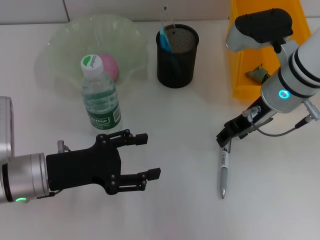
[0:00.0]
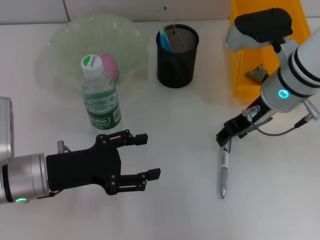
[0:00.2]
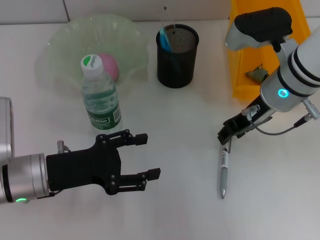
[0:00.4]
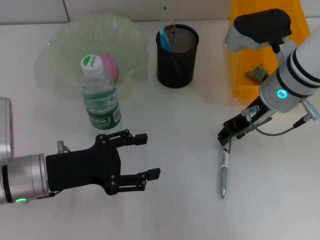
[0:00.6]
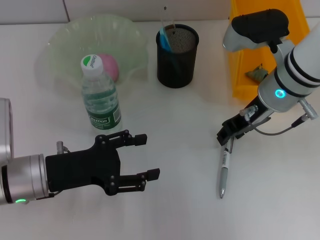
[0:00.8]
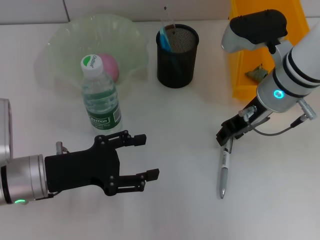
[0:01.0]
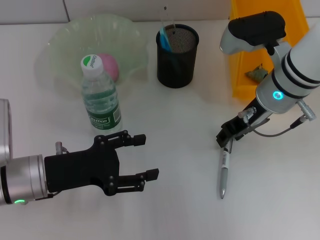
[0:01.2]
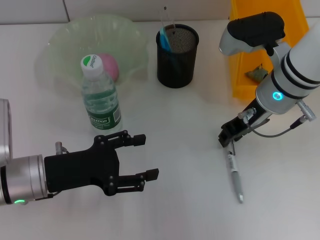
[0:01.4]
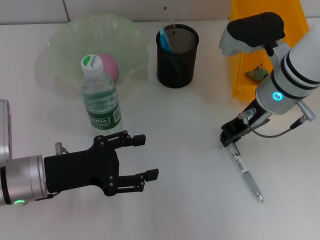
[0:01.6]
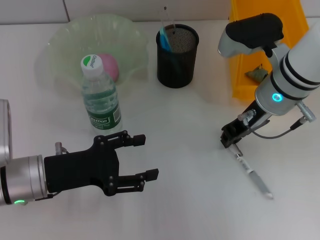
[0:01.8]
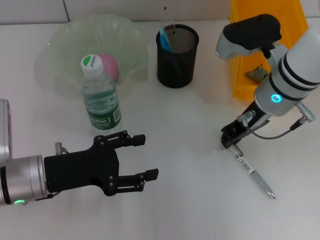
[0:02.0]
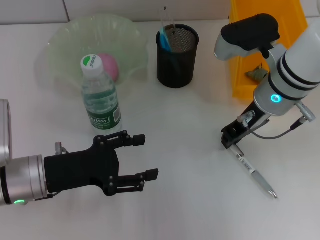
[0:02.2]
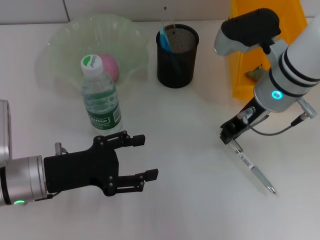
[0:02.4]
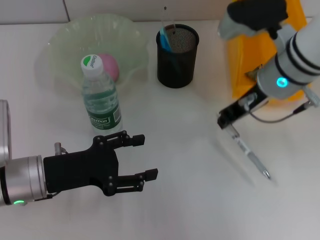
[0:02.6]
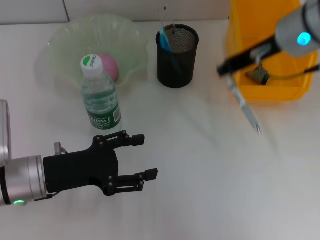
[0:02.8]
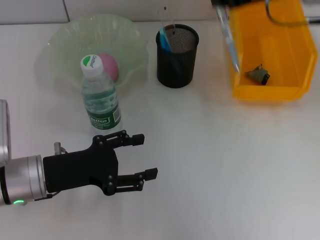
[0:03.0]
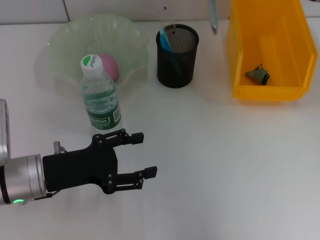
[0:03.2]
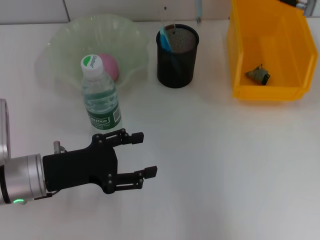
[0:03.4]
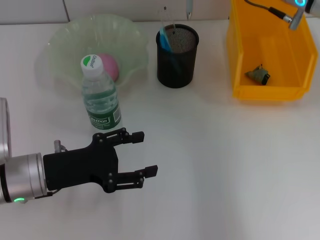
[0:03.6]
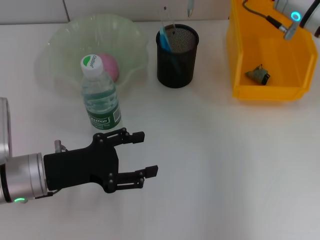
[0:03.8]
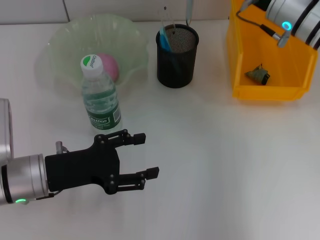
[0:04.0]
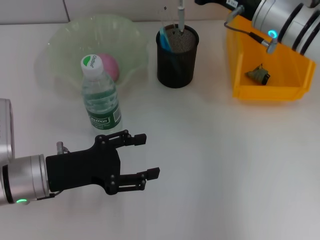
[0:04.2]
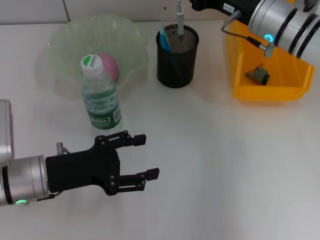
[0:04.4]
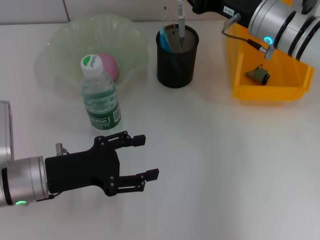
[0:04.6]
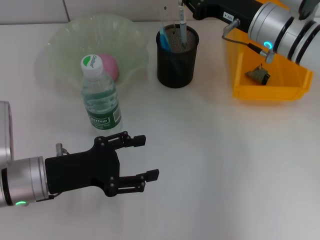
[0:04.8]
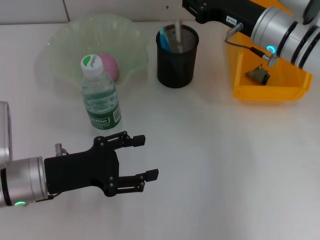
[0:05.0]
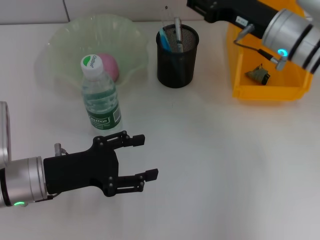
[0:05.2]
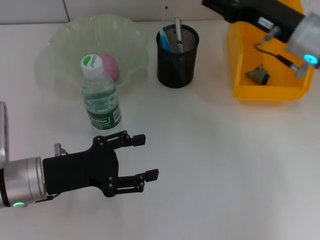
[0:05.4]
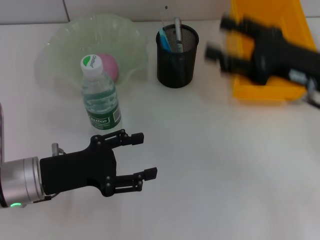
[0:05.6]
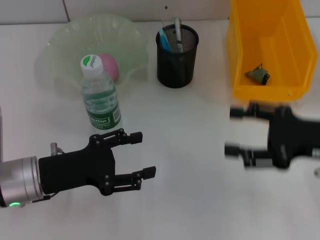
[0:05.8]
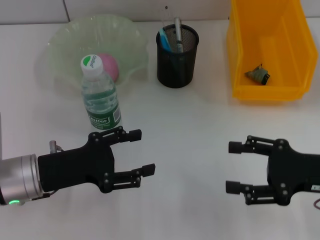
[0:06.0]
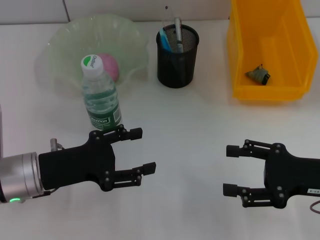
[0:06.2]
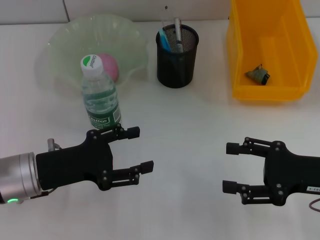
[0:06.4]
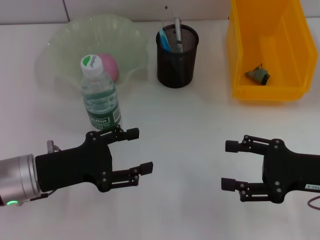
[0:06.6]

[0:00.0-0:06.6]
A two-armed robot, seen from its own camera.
Step, 2.0 to 5.4 s: Place the gray spring-action pen into the pen holder with the right hand.
0.0 to 1.6 s: The right gripper closes its fingers.
1.6 to 3.2 s: The right gripper goes approximately 15 cm upward.
3.2 to 5.0 s: The right gripper moves downward, about 15 cm.
5.0 to 6.6 s: The right gripper is displaced backward and to the right by roughly 20 cm, and opens.

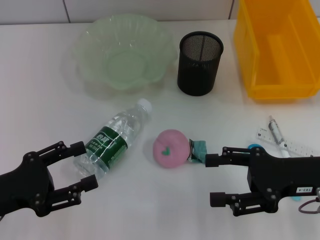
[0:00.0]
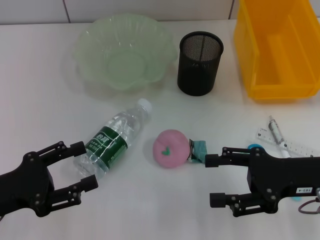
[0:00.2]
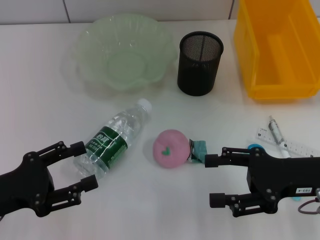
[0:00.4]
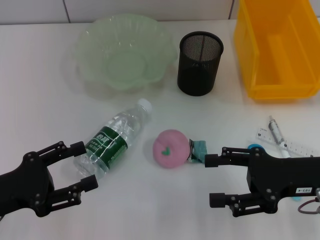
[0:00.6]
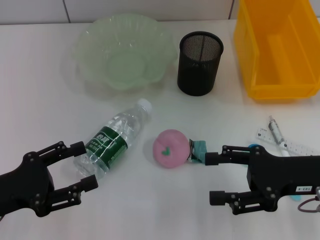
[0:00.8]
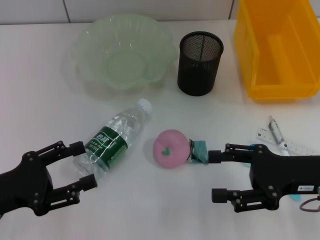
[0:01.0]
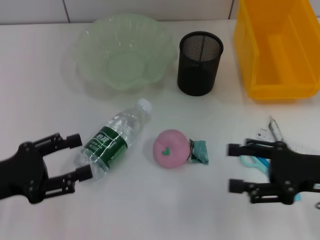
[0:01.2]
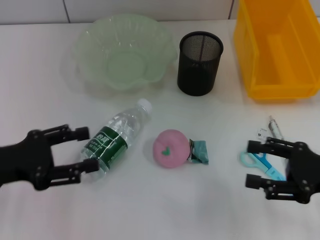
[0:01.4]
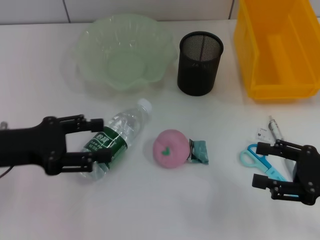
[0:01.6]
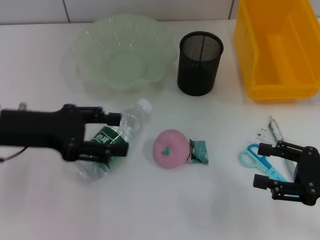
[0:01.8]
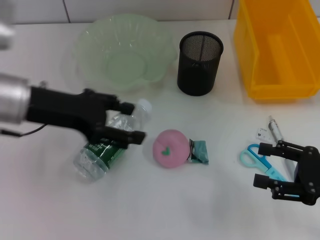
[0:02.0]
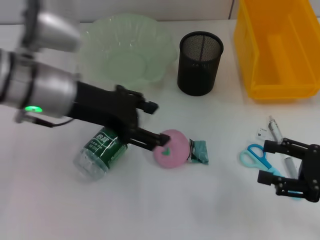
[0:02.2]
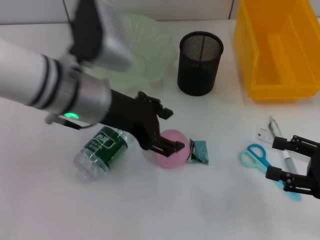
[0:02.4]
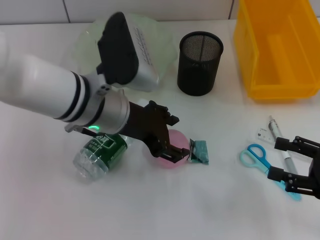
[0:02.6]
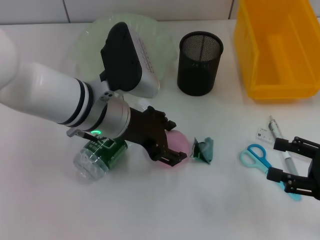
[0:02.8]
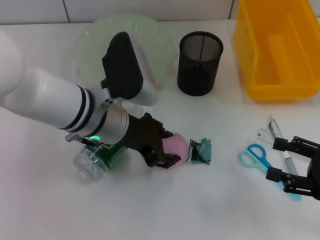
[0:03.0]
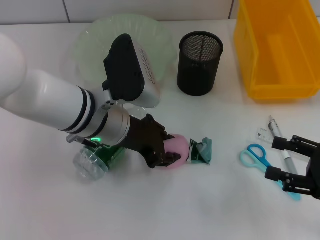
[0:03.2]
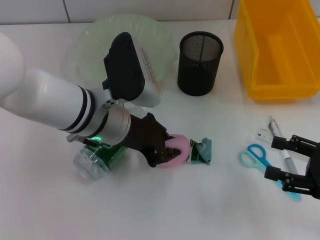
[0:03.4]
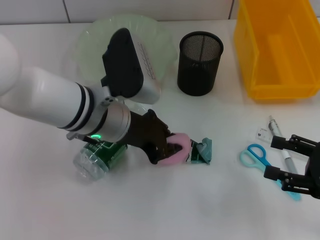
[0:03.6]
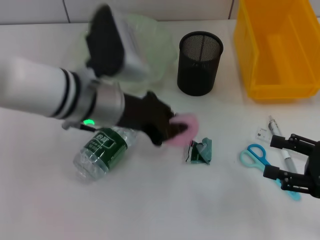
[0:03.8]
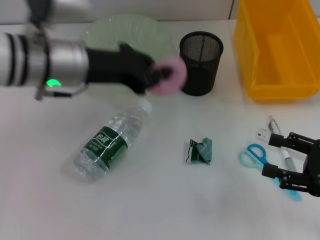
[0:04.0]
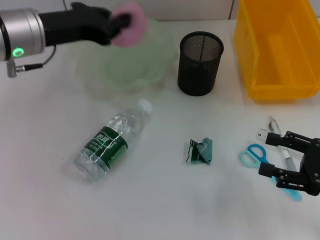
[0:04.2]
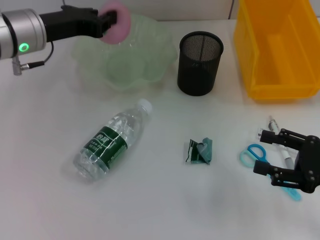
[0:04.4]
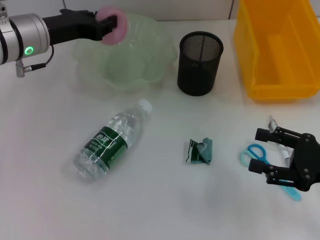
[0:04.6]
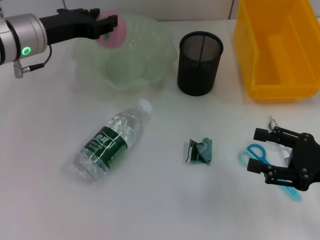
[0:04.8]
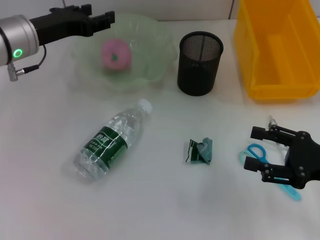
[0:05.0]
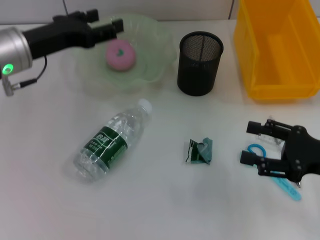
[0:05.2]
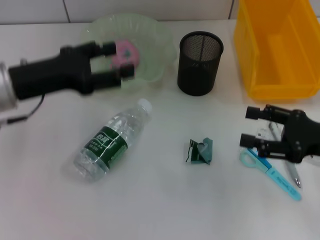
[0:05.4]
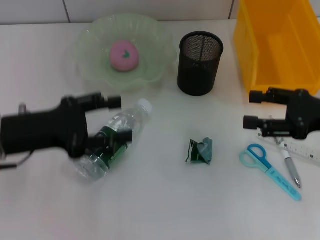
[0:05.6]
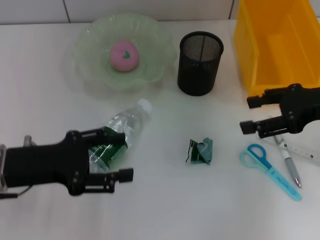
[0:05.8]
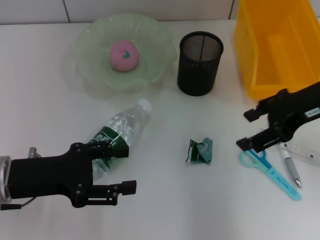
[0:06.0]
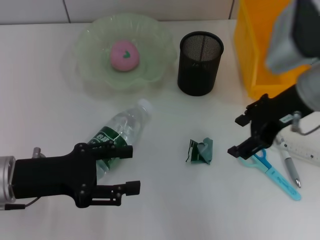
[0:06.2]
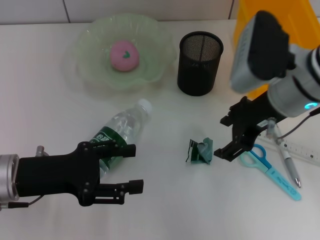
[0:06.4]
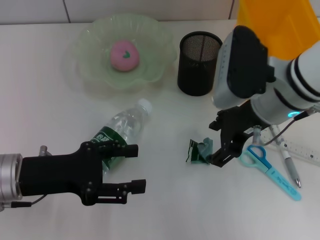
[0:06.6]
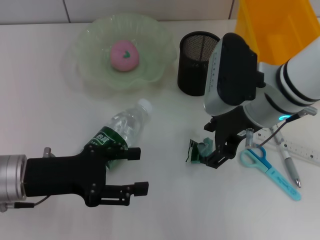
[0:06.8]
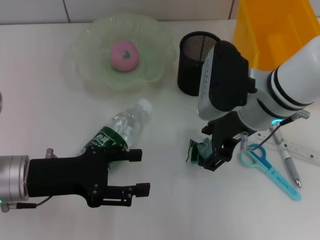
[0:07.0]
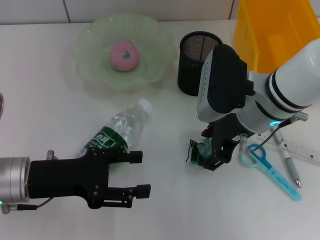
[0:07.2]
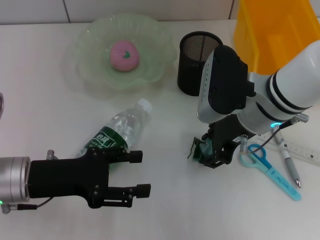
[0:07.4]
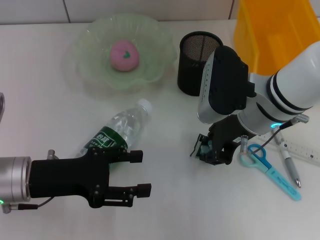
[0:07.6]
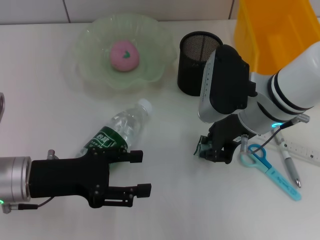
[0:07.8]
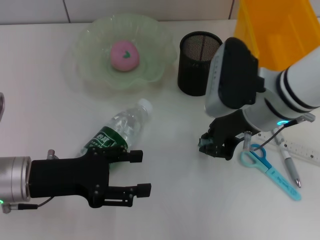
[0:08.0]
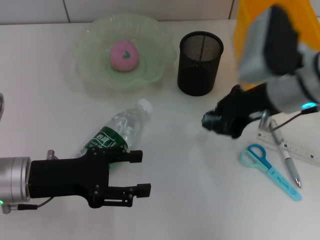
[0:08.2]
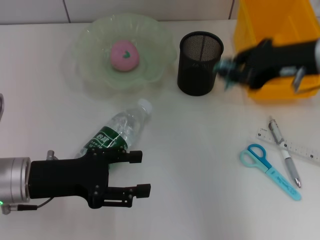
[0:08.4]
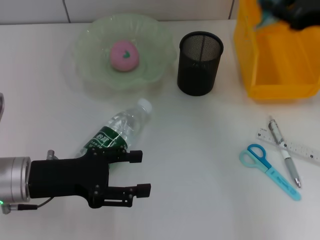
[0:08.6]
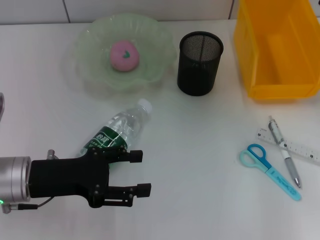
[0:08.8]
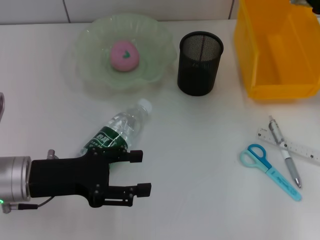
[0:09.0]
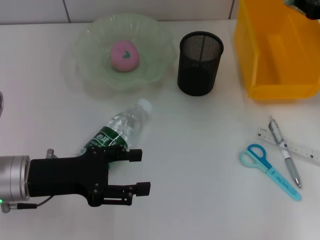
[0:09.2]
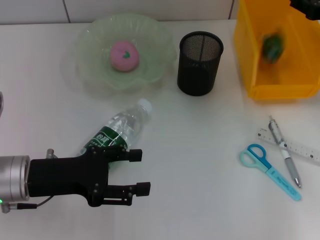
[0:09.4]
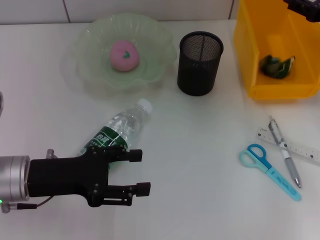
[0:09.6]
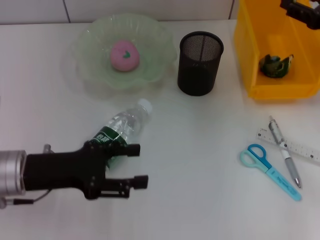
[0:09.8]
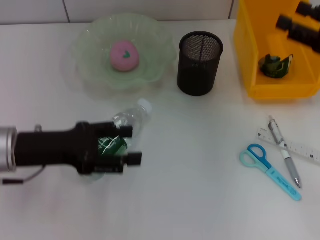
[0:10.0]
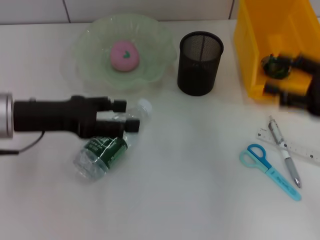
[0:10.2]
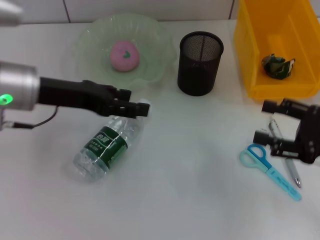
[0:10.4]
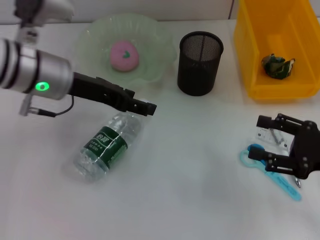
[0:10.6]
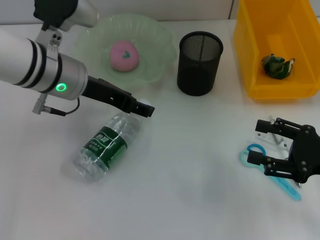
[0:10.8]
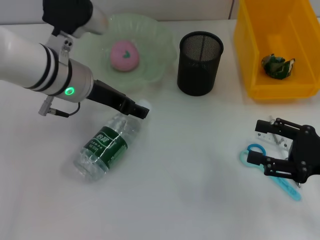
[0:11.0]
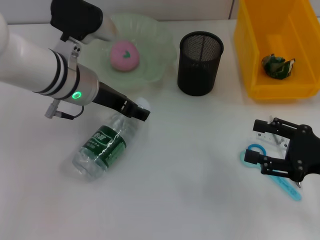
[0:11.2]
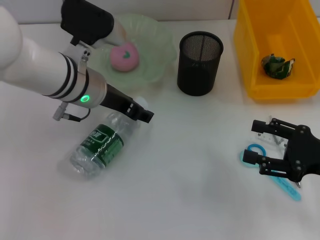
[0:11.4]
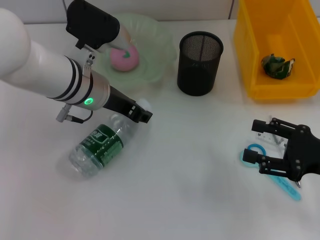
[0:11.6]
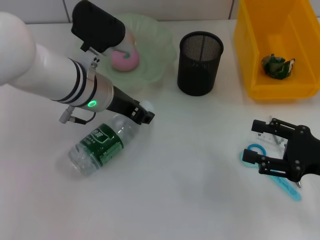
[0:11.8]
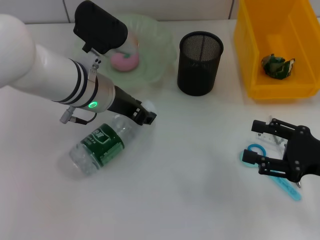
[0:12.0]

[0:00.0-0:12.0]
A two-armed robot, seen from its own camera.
Step, 0.0 to 3.4 s: Grab the peach with the left hand.
Step, 3.6 to 5.0 s: Place the peach into the fruit bowl with the left hand.
Step, 5.2 to 7.6 s: Grab the plastic with the right hand.
Step, 7.8 to 9.8 s: Place the plastic into the trash can with the right hand.
Step, 10.0 to 11.8 s: Grab the water bottle with the left hand.
0.0 to 1.6 s: The left gripper heads forward and upward, covering approximately 10 cm; the right gripper is displaced to the right by about 5 cm.
1.6 to 3.0 s: The left gripper heads to the right, covering roughly 20 cm.
3.0 to 4.4 s: The left gripper goes about 15 cm to the left and forward, and closes its fingers.
4.4 to 6.0 s: The right gripper heads upward, forward and to the left, covering about 20 cm. The left gripper moves backward and downward, roughly 20 cm, and opens up.
6.0 to 7.6 s: The right gripper travels to the left and downward by approximately 10 cm, and closes up.
7.6 to 9.0 s: The right gripper goes about 20 cm to the right.
9.0 to 10.4 s: The left gripper heads upward and forward, covering about 10 cm. The right gripper travels backward and downward by some 15 cm, and opens.
10.4 to 12.0 s: The left gripper heads to the right, covering roughly 10 cm, and closes.

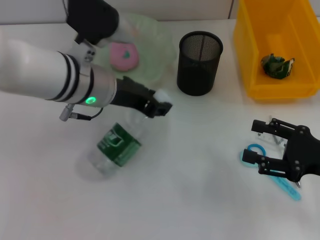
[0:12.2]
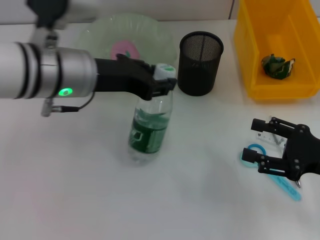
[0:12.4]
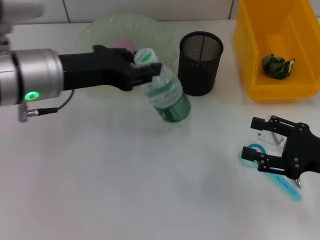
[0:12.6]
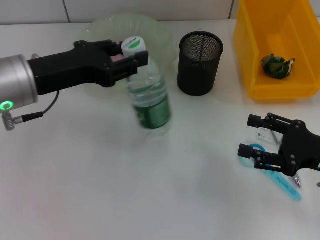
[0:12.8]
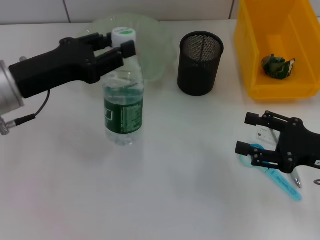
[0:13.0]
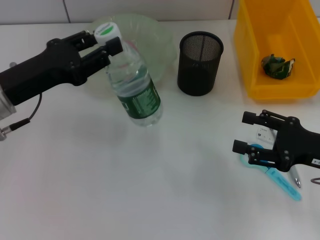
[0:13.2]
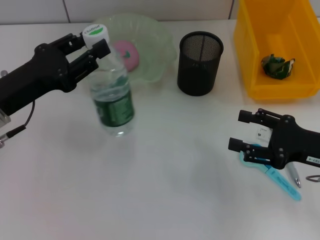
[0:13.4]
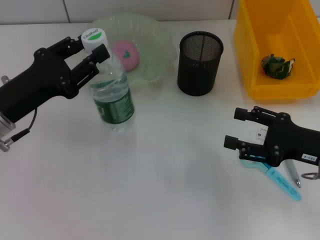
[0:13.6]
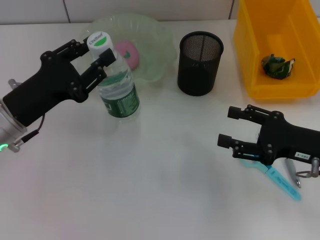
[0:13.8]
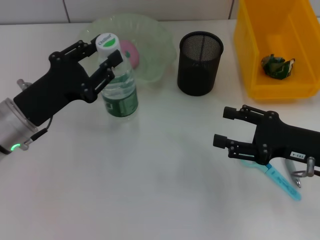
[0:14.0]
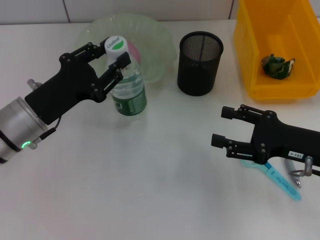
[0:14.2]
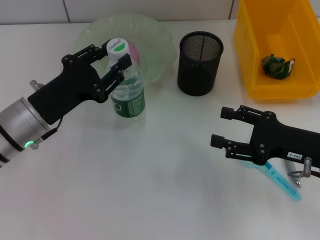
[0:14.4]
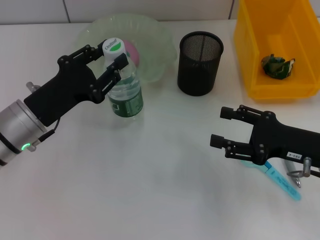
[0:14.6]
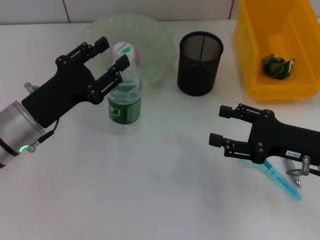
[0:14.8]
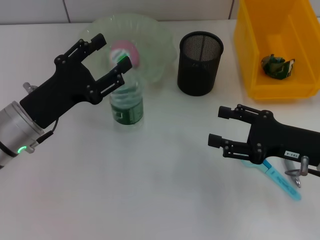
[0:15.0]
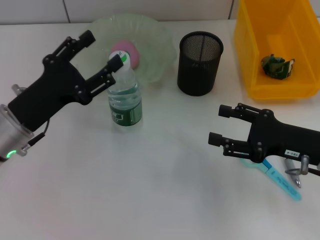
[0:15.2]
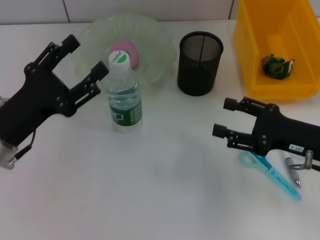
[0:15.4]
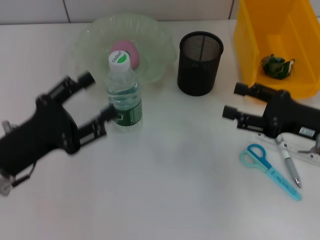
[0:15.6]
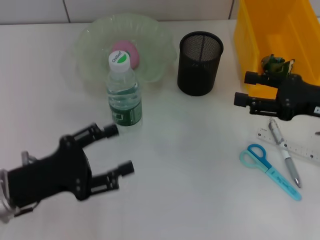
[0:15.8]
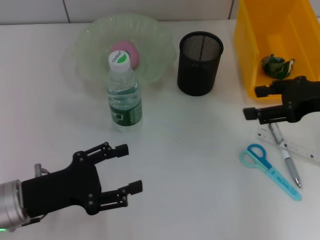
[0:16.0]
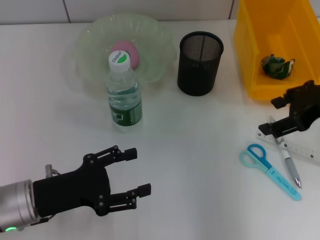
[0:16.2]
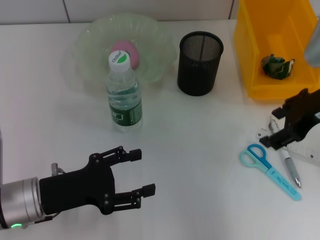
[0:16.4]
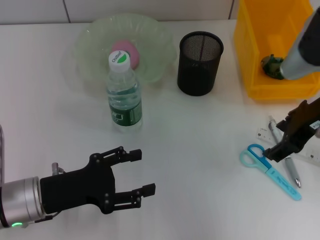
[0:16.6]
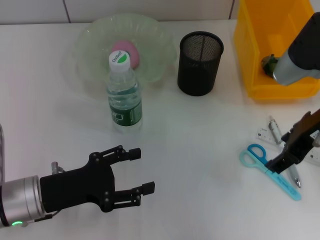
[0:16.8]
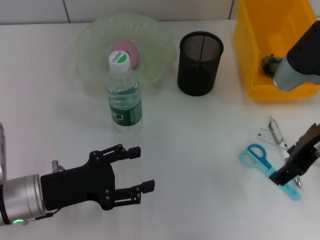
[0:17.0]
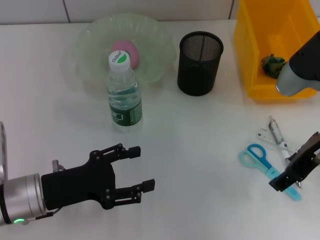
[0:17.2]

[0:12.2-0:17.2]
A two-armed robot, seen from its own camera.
Step, 12.2 to 15.2 s: Place the water bottle on the table with the left hand.
12.2 to 13.8 s: The left gripper goes about 15 cm to the left, downward and backward.
13.8 to 15.6 s: The left gripper moves backward, some 5 cm, and opens.
15.6 to 17.2 s: The right gripper shifts approximately 10 cm upward and to the left.
